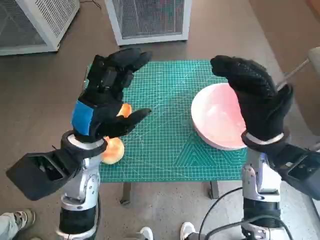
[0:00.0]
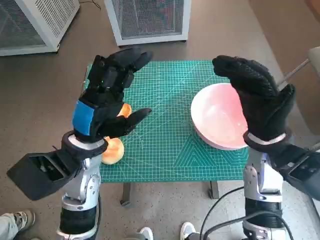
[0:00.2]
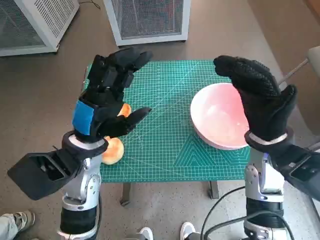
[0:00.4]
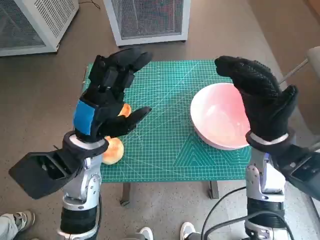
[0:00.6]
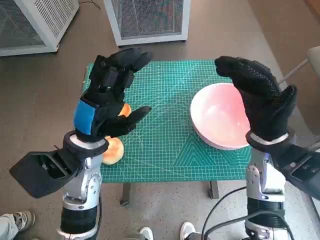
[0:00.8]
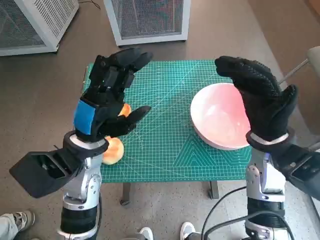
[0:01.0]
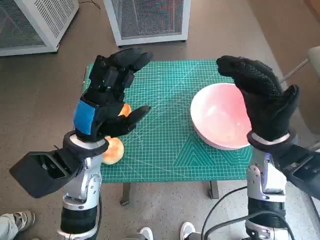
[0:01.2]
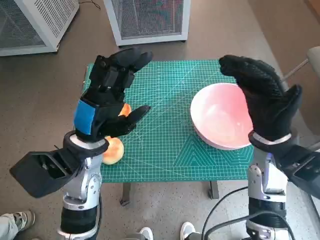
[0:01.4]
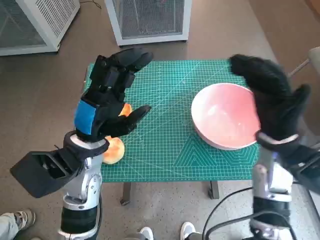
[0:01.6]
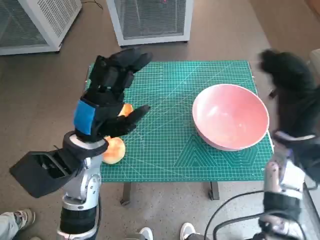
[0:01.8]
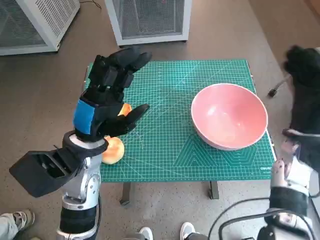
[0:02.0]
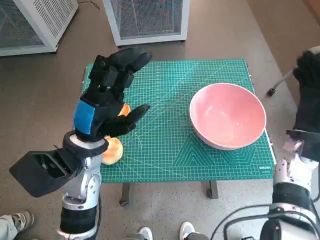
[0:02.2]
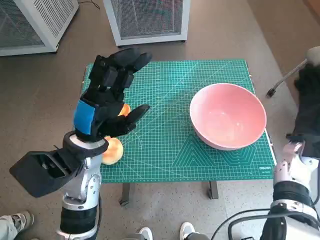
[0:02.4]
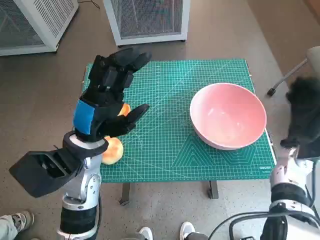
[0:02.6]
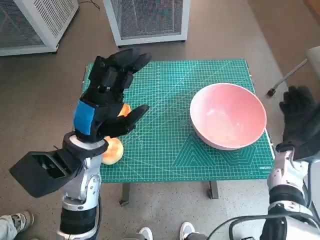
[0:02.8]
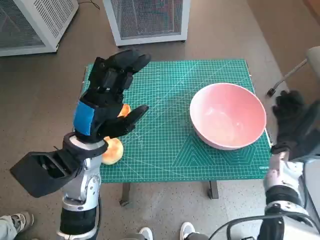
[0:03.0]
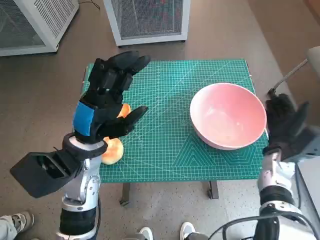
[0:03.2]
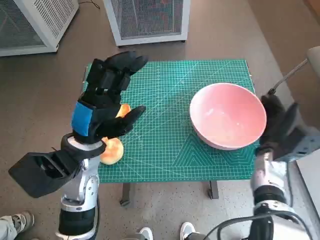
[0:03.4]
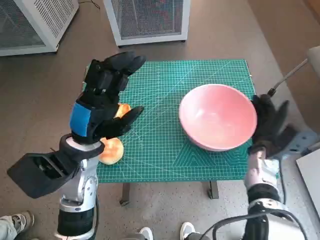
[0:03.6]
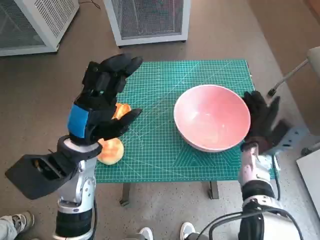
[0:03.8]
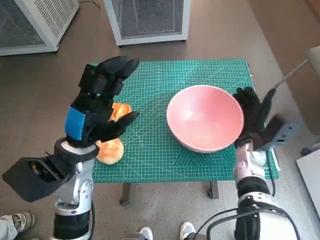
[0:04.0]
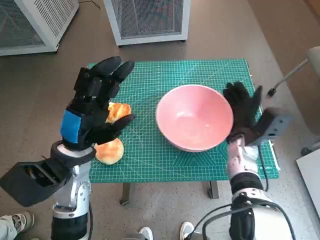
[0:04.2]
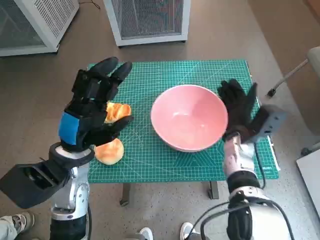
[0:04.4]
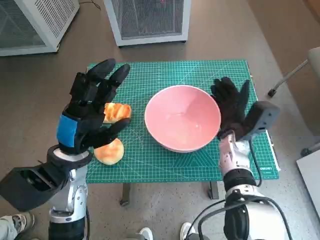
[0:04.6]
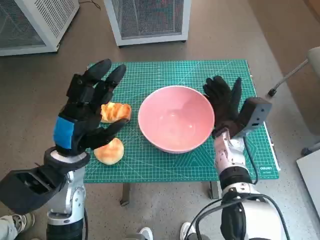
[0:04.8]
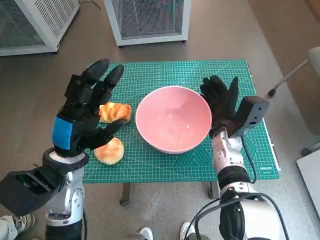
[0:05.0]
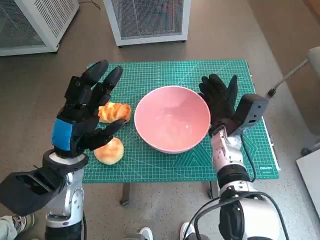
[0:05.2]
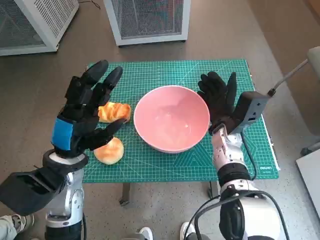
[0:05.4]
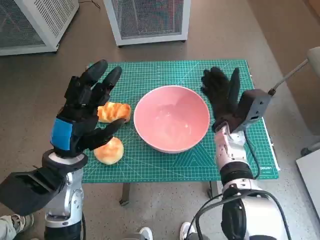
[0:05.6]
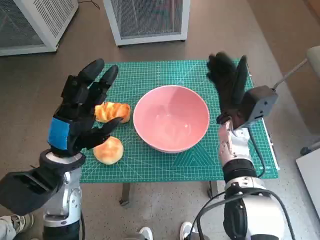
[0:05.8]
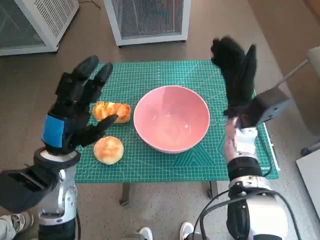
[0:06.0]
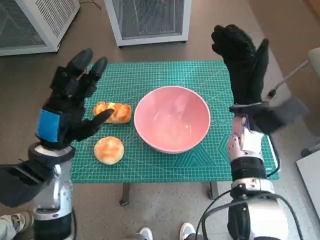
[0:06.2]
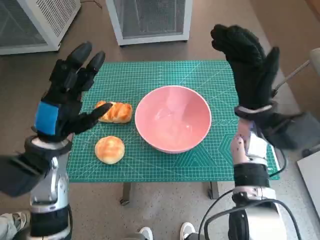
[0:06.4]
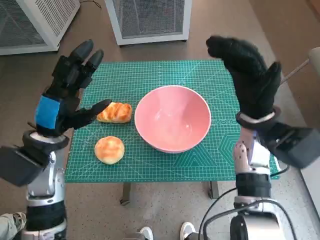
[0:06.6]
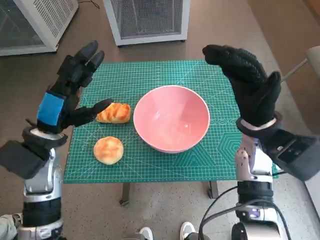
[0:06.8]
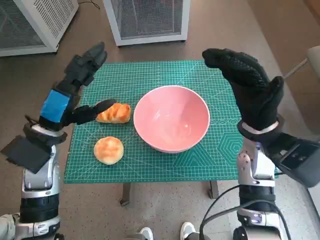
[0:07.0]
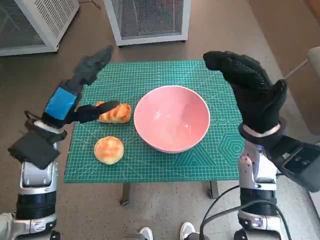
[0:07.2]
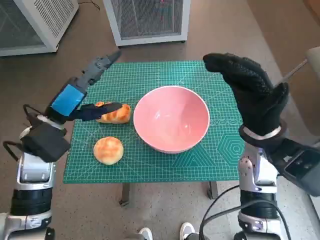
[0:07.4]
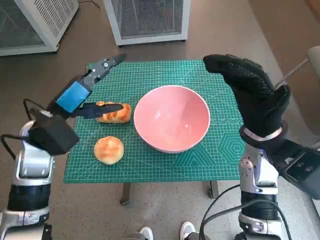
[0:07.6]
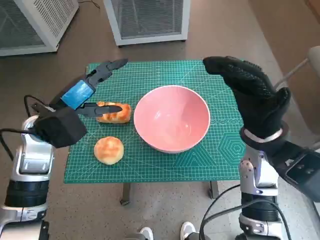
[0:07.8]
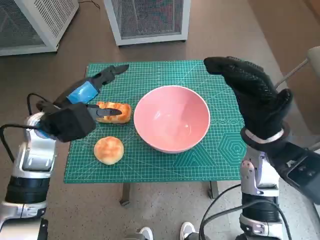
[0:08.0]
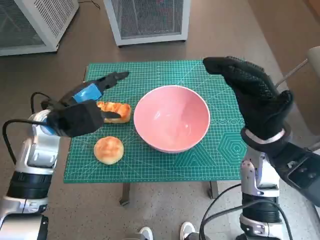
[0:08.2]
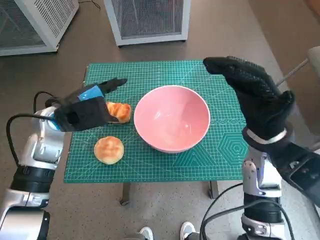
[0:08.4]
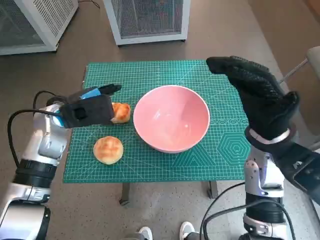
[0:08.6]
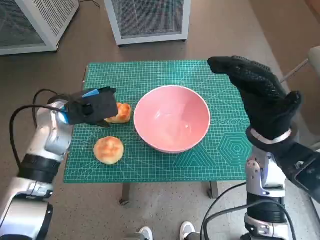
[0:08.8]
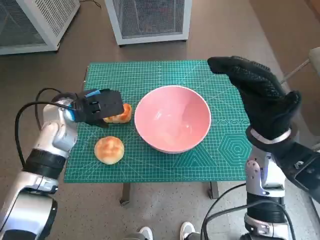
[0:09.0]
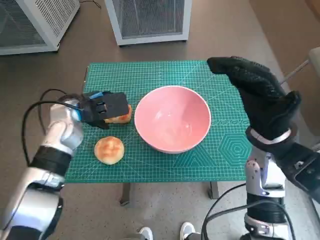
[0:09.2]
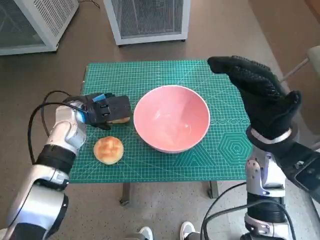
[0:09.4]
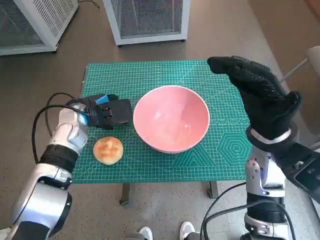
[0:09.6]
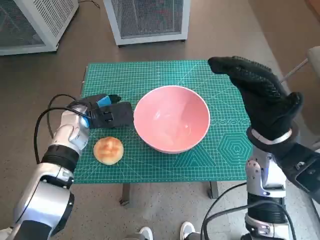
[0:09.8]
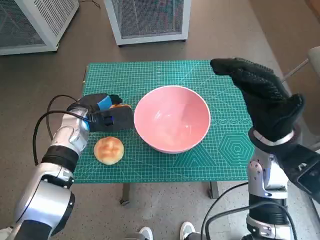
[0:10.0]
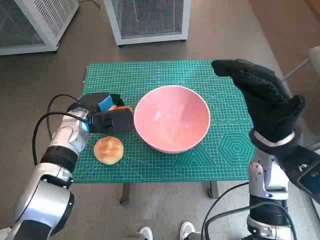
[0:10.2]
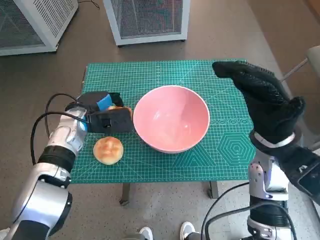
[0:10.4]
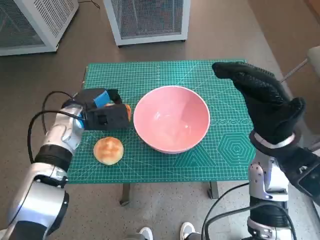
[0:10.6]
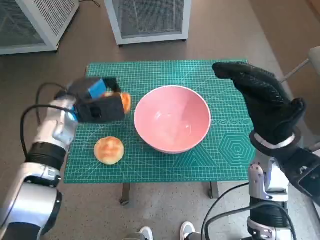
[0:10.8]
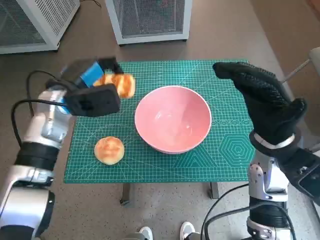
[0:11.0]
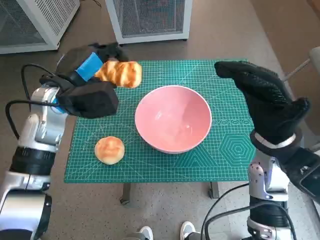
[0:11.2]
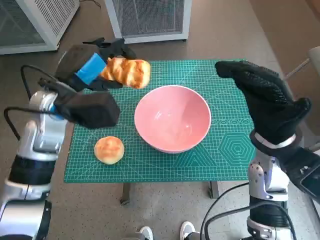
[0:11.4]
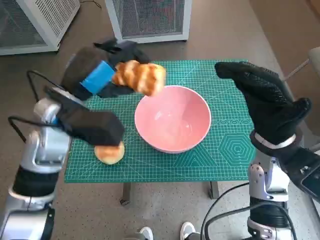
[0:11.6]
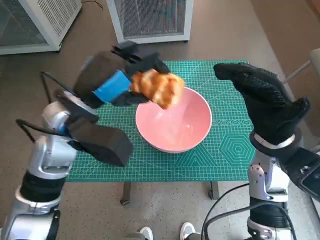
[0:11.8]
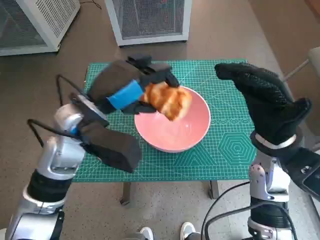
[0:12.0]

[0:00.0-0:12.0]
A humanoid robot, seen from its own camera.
Task of the whole recording: Push the bowl into the center of the table and put the bread into the bowl.
Step, 0:00.0 to 0:05.6: Move the pink bowl to the center of table with right hand.
Step, 0:05.8 to 0:10.2: Grasp the long bread with left hand.
0:01.6 to 0:03.0: The right hand heads downward and to the right, covering approximately 15 cm.
0:03.0 to 0:04.4: The right hand is displaced to the left by some 10 cm.
0:04.4 to 0:06.0: The right hand moves upward, about 5 cm.
0:06.0 to 0:07.6: The right hand shifts some 5 cm backward; the left hand is displaced forward by some 5 cm.
0:07.6 to 0:09.0: The left hand travels forward by roughly 5 cm.
0:09.0 to 0:10.4: The hands make only small movements.
0:10.4 to 0:12.0: The left hand moves upward, backward and to the right, about 15 cm.

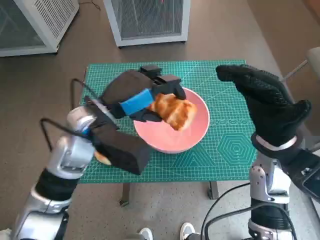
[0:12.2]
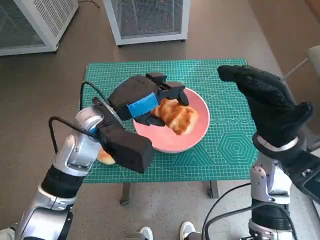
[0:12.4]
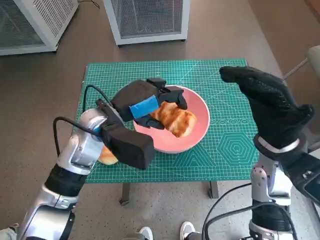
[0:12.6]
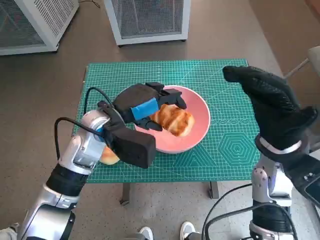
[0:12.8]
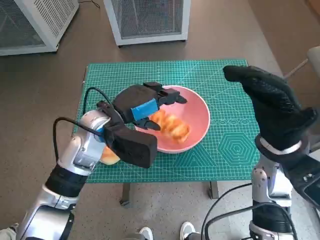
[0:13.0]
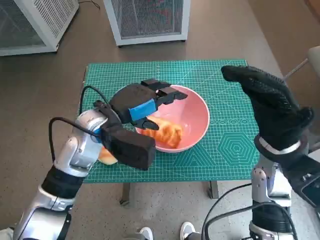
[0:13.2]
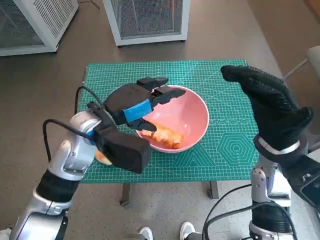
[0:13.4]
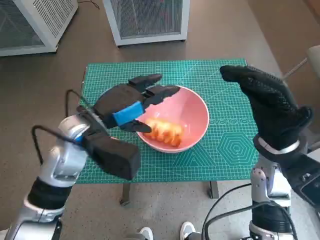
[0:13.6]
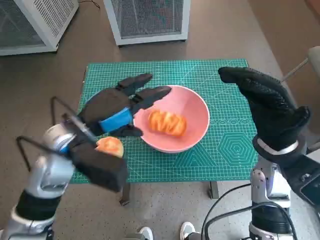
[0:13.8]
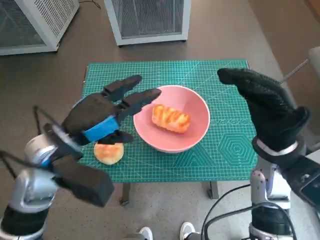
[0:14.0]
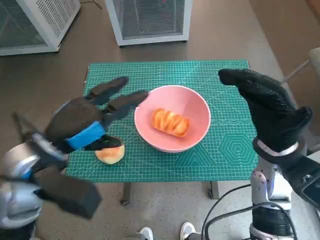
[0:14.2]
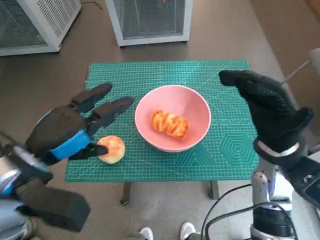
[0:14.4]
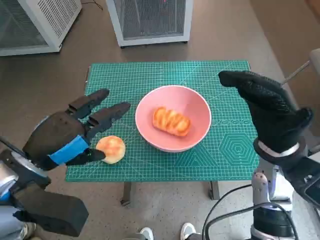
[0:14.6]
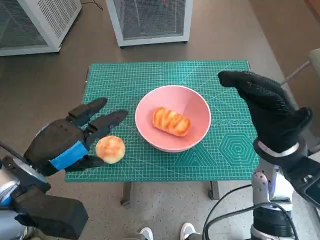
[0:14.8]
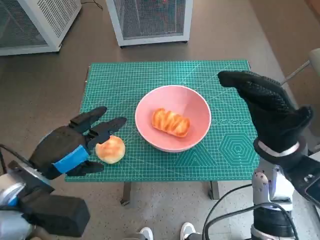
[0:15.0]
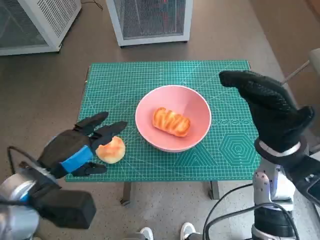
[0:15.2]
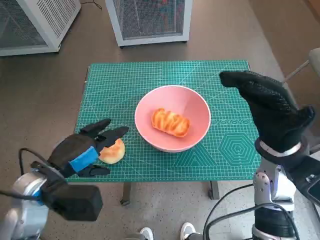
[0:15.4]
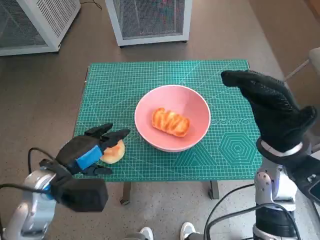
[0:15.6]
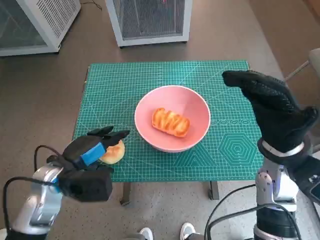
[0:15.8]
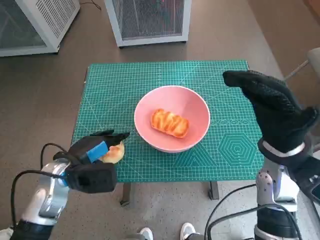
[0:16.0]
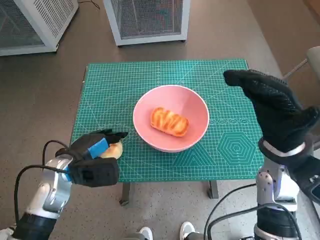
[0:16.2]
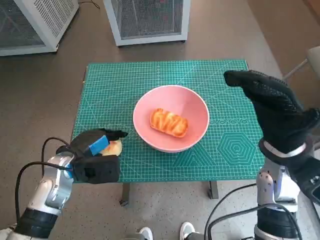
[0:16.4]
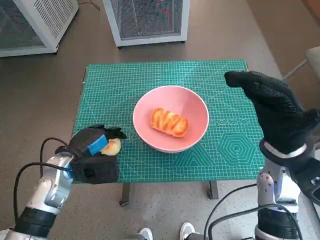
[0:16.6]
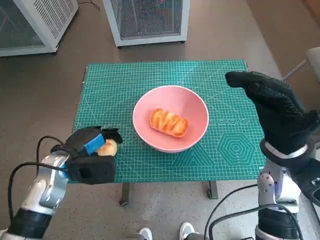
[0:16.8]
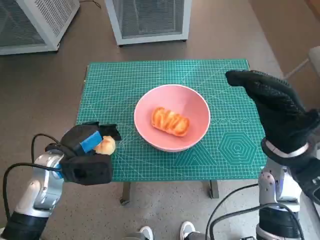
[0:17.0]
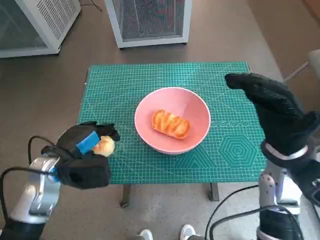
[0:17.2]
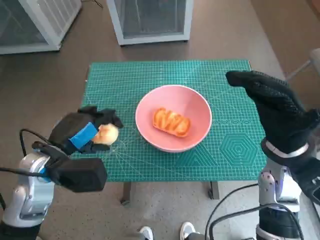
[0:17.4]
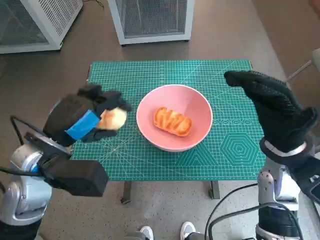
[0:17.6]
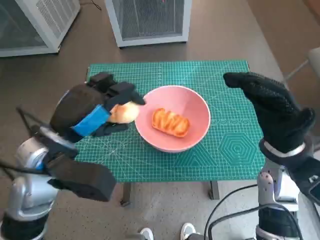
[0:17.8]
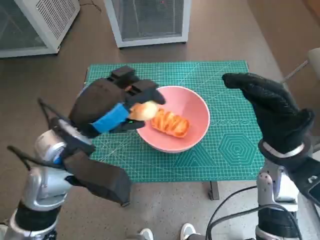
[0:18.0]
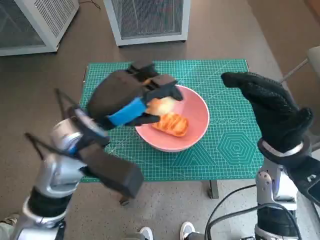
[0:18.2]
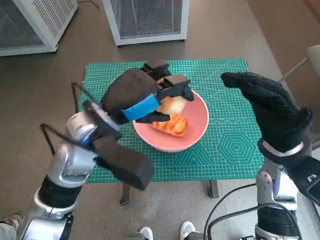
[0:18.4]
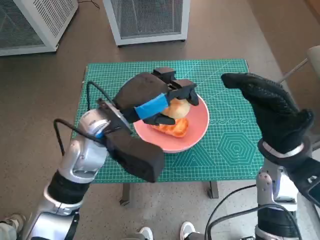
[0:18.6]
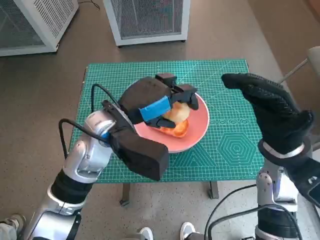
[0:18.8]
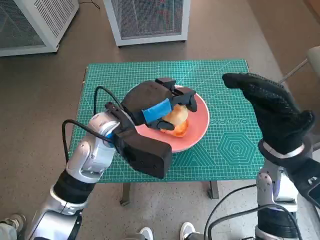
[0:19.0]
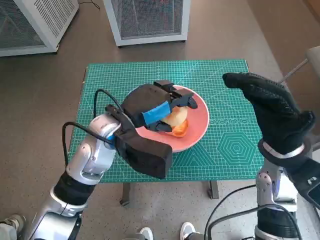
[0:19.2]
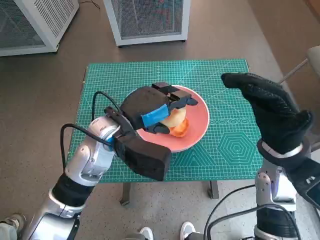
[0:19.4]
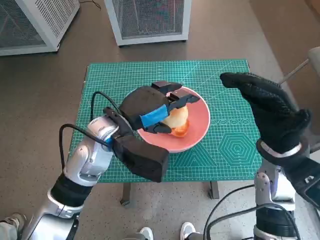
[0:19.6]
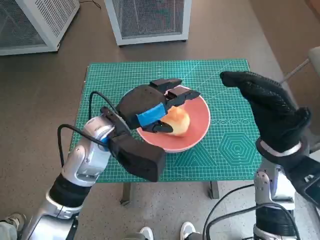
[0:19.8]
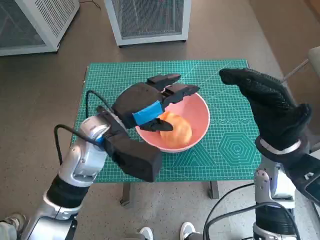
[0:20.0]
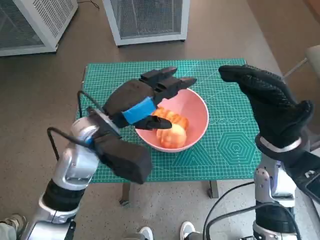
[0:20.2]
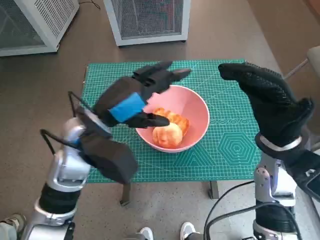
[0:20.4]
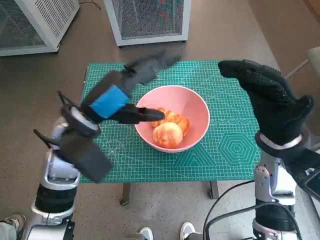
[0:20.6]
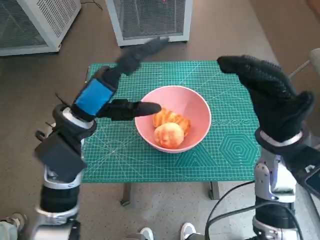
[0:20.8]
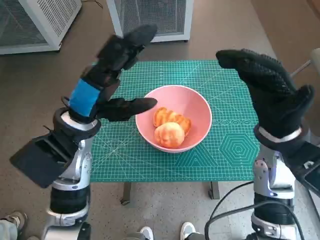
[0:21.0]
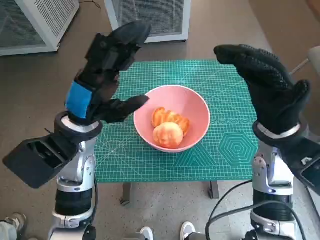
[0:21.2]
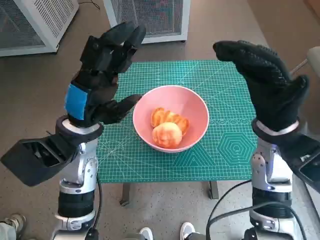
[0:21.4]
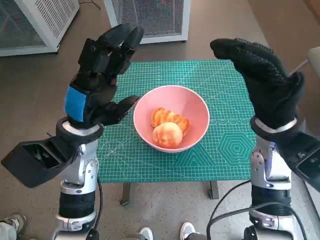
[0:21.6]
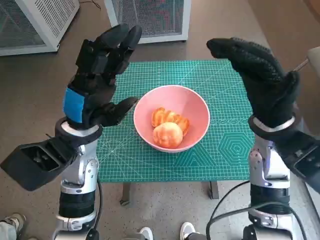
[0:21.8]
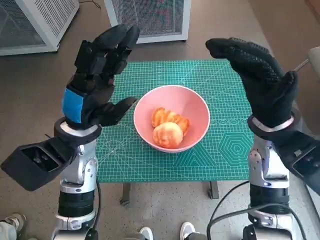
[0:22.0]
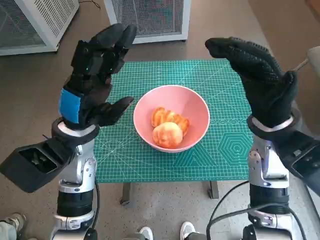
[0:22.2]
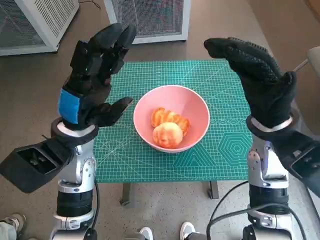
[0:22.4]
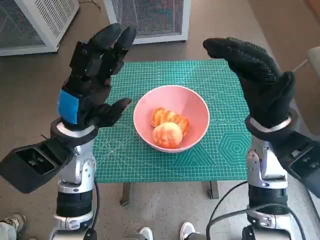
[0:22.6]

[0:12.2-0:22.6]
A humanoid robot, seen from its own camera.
Task of the whole recording: Push the bowl into the center of the table and put the bread into the bowl.
Step, 0:13.2 to 0:16.2: Grasp the round bread with left hand.
Step, 0:16.4 to 0:19.6: Place the round bread in pink bowl with left hand.
0:13.6 to 0:15.2: The left hand travels backward and to the left by some 10 cm.
0:15.2 to 0:16.6: The left hand heads downward and forward, covering approximately 10 cm.
0:16.6 to 0:18.2: The left hand heads upward and to the right, covering roughly 15 cm.
0:18.2 to 0:19.6: The left hand ends up about 5 cm from where it was.
0:19.6 to 0:21.2: The left hand changes place by some 5 cm.
0:21.2 to 0:22.6: The hands make only small movements.
